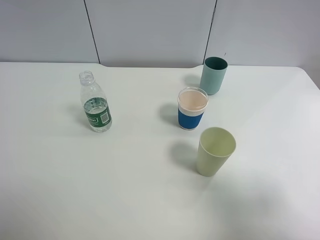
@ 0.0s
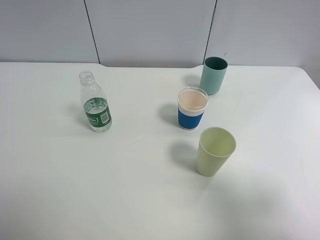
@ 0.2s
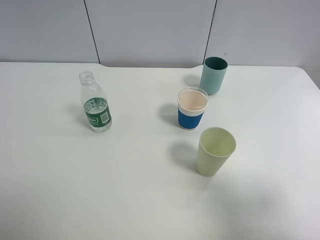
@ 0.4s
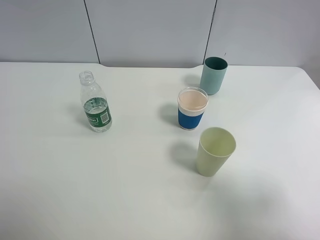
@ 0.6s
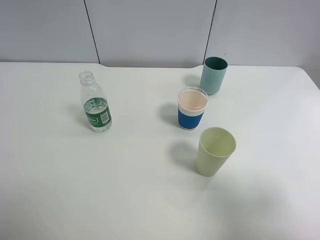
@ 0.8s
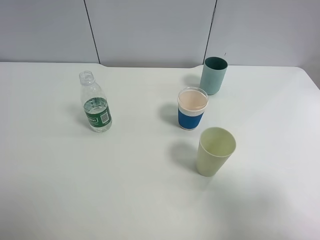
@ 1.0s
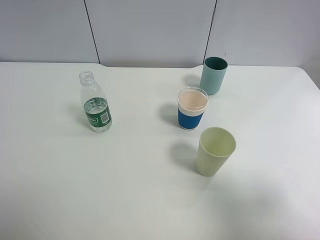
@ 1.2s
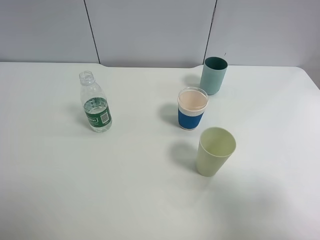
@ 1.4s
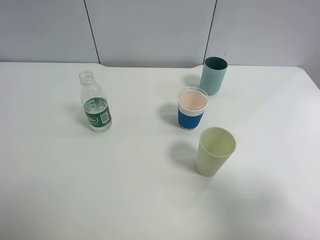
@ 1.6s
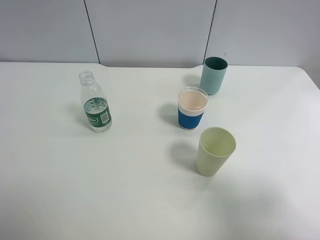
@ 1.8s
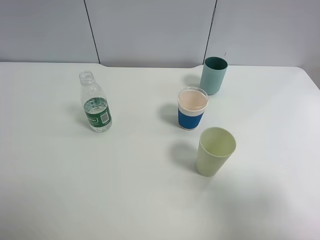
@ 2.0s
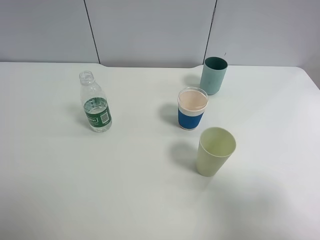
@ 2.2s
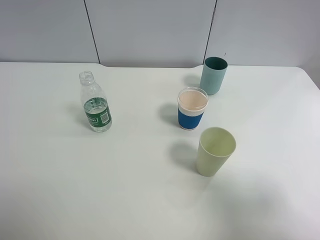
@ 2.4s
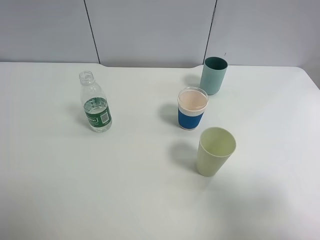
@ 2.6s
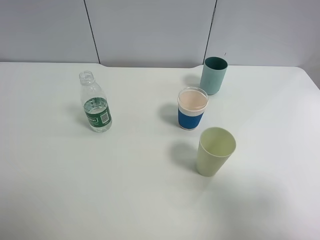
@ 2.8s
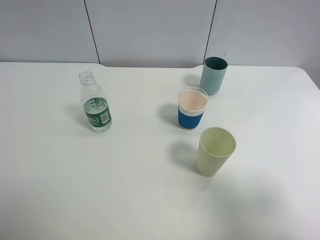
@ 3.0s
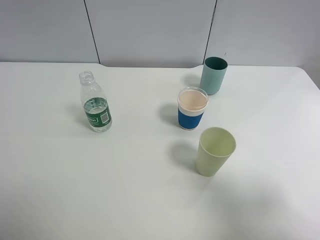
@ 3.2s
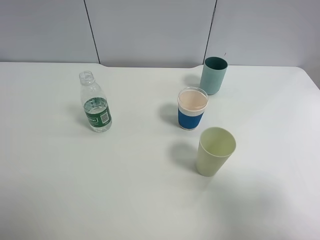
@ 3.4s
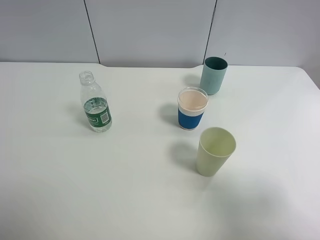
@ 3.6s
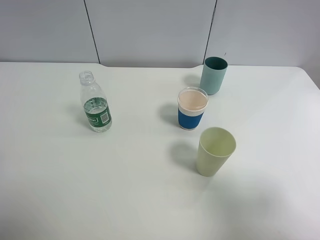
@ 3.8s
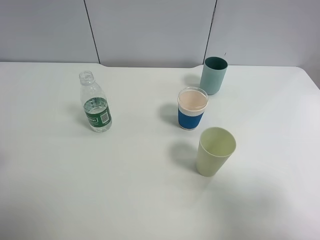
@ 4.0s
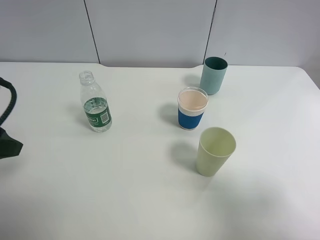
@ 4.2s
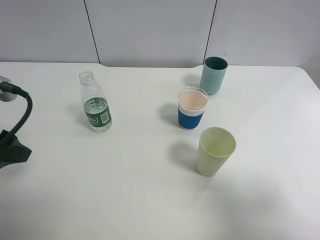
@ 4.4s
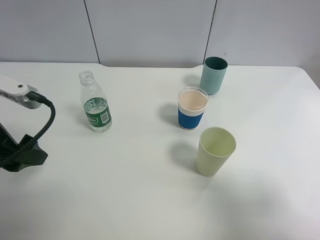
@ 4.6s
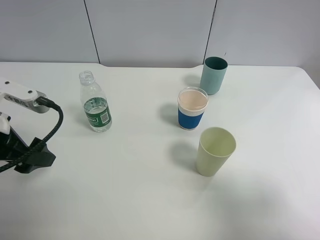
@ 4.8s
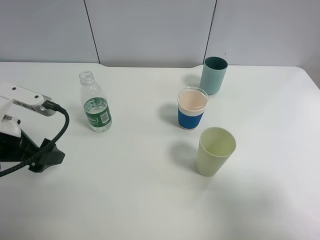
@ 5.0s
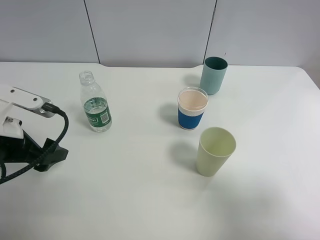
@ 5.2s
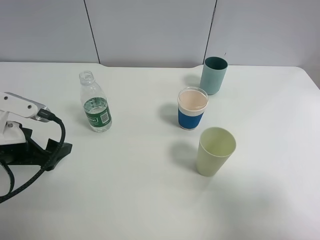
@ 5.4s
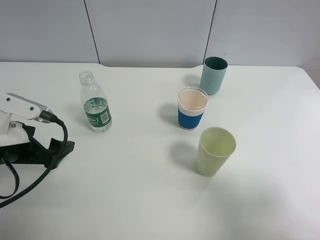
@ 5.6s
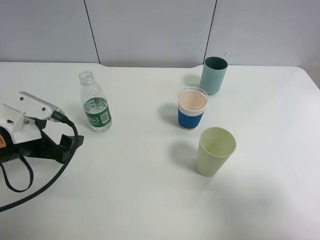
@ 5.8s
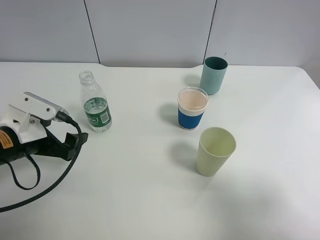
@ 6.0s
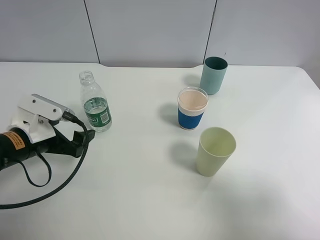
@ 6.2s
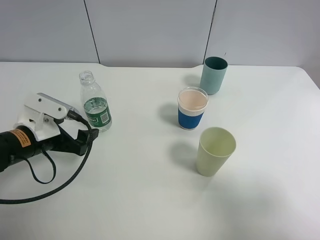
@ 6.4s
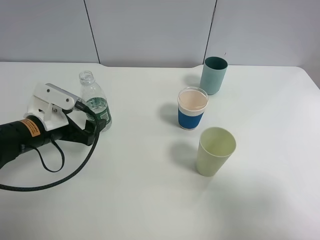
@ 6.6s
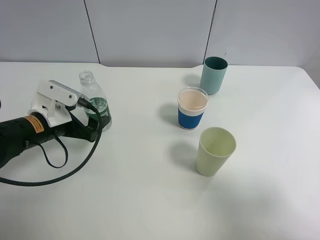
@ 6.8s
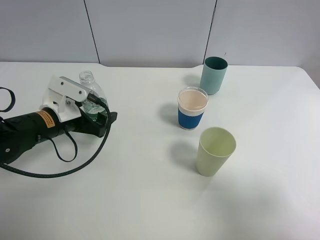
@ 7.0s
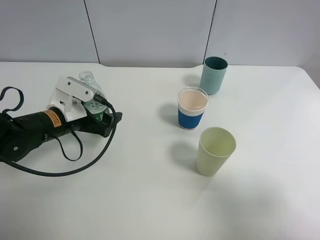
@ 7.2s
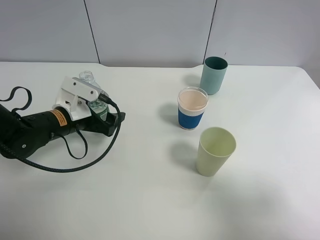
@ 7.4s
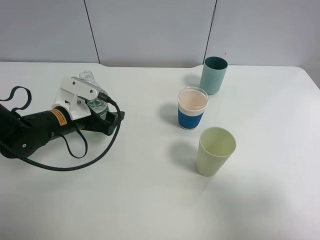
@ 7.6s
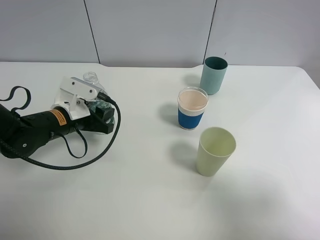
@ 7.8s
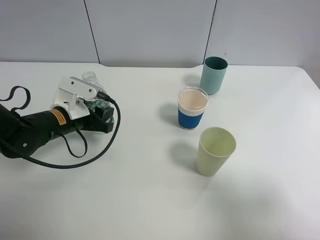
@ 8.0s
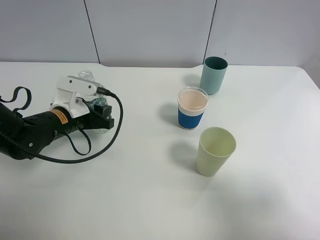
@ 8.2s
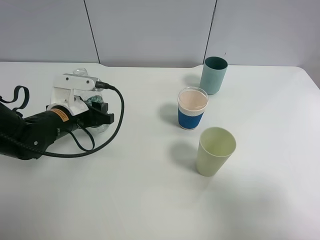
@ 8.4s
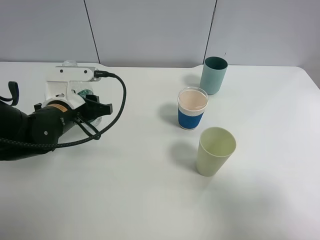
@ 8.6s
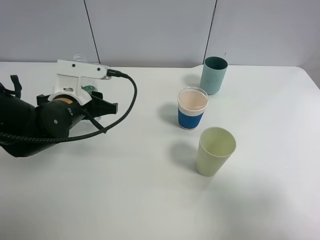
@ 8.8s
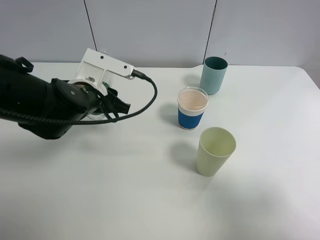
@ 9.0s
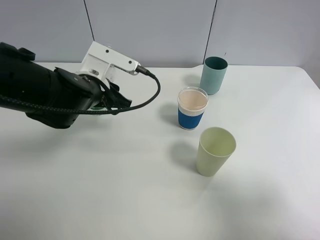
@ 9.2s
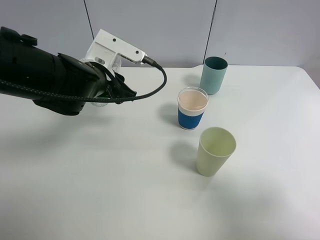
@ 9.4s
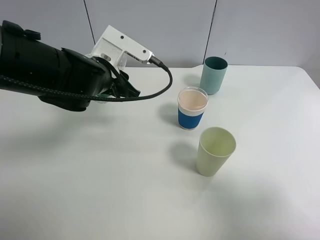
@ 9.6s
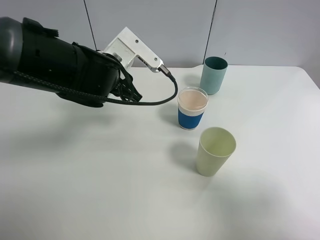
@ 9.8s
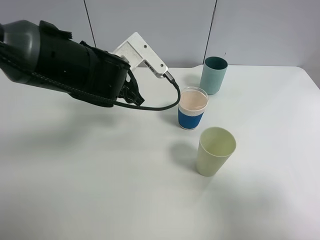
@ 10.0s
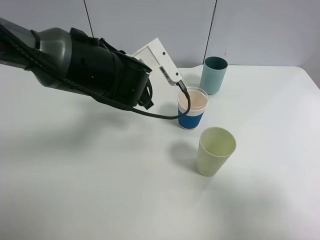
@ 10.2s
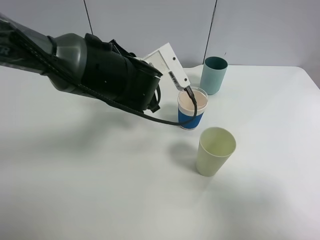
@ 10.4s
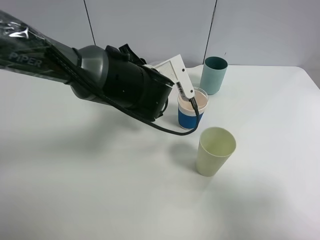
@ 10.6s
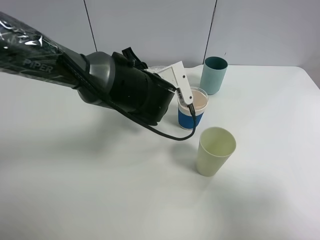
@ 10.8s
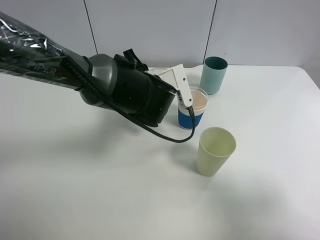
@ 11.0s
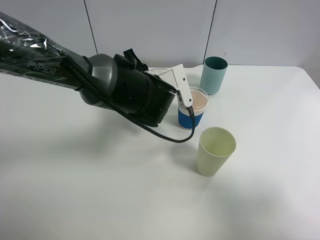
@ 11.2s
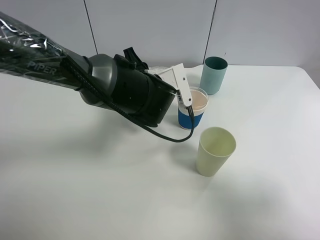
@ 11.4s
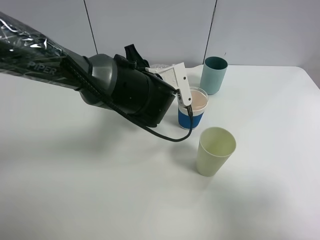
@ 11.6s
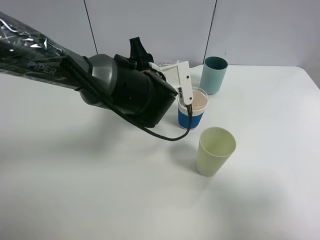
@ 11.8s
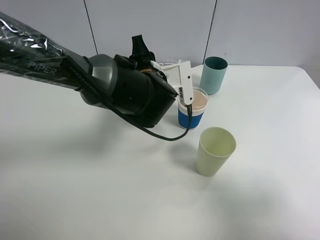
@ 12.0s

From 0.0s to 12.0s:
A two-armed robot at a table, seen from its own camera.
Task of the whole recording: use a clamp to hold the bottle of the drink, pour the beverage into a random cup, then clamp the cup containing the drink and pour the drink into another random cup.
Step, from 0.0s to 9.2s: Pick up the water bottle with left gripper.
From 0.0s to 3.0s: The two grippers keep their place.
From 3.0s to 4.4s: The left gripper travels forward by about 15 cm.
From 4.4s to 6.0s: The left gripper heads downward, covering about 10 cm.
From 6.0s to 7.6s: The left gripper goes about 10 cm forward.
From 7.6s to 9.0s: The left gripper heads upward and to the right, covering roughly 10 cm, and closes its fingers.
From 9.0s to 10.4s: The left gripper travels to the right by approximately 10 cm.

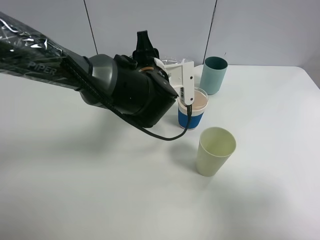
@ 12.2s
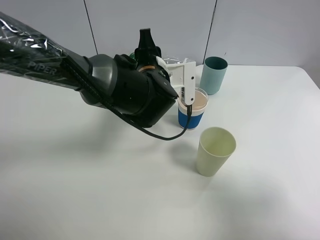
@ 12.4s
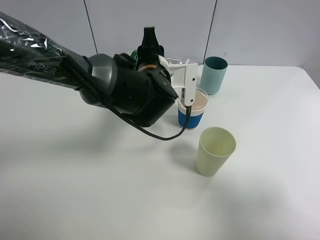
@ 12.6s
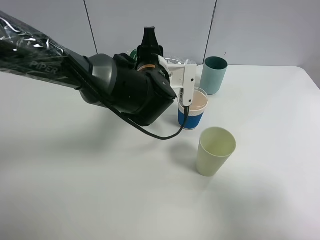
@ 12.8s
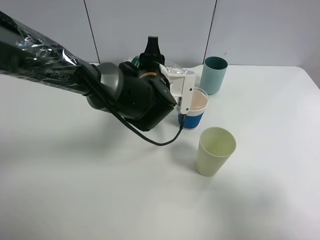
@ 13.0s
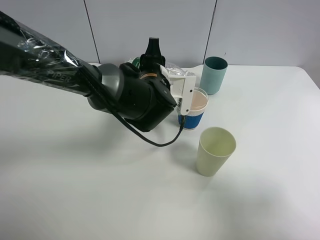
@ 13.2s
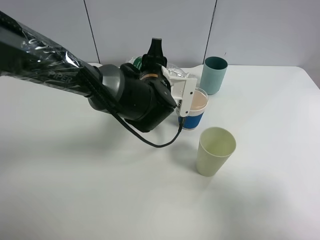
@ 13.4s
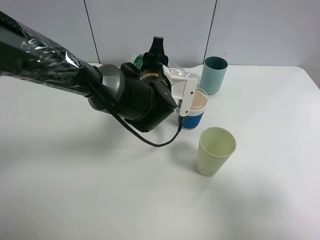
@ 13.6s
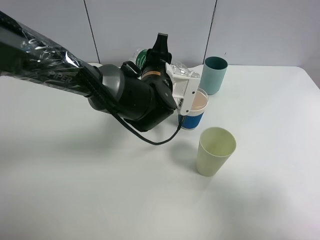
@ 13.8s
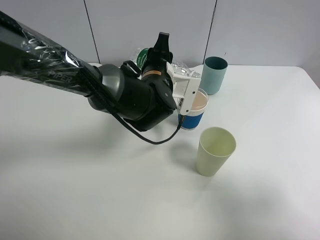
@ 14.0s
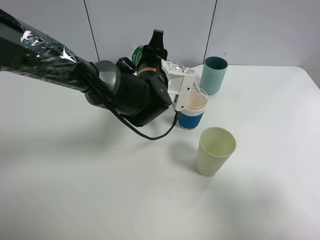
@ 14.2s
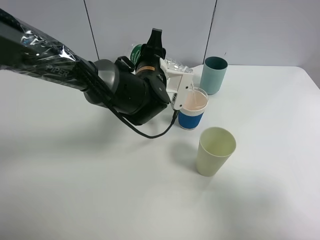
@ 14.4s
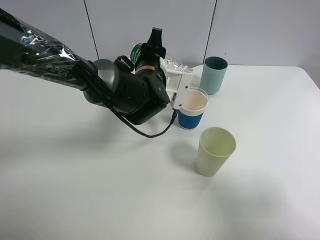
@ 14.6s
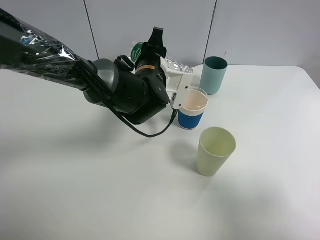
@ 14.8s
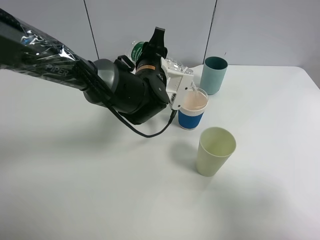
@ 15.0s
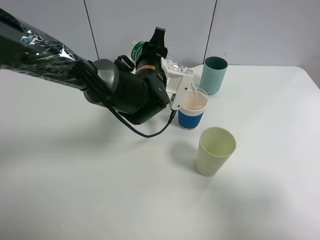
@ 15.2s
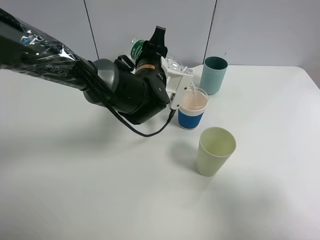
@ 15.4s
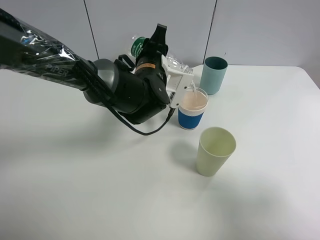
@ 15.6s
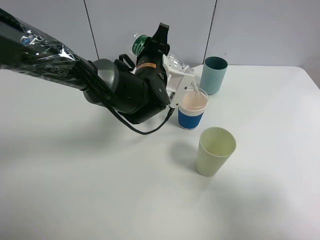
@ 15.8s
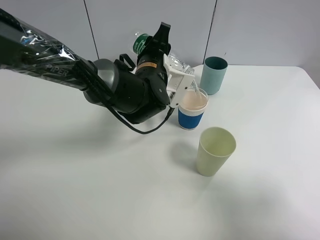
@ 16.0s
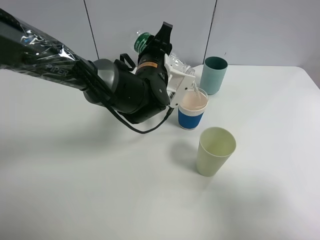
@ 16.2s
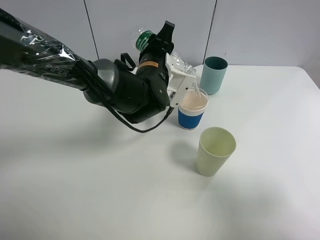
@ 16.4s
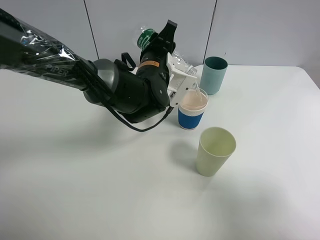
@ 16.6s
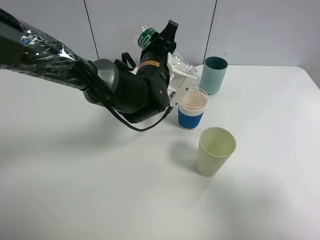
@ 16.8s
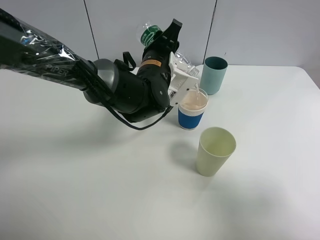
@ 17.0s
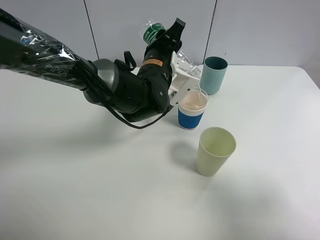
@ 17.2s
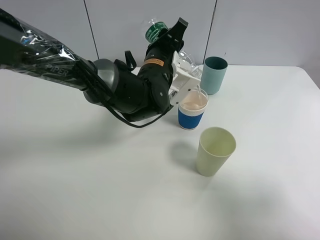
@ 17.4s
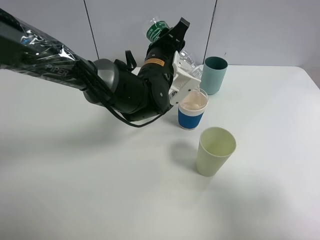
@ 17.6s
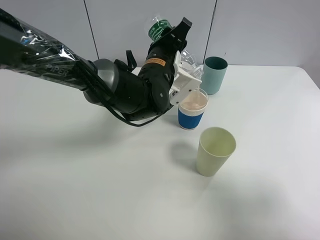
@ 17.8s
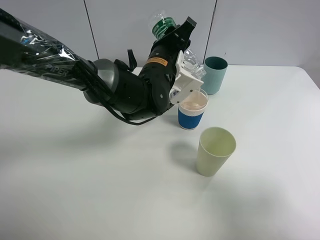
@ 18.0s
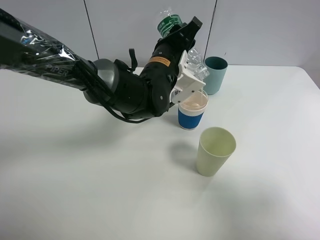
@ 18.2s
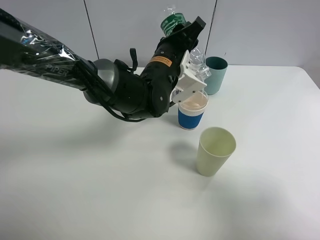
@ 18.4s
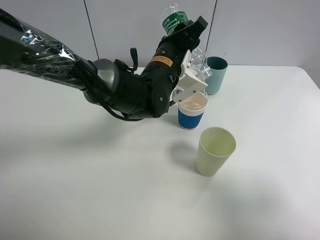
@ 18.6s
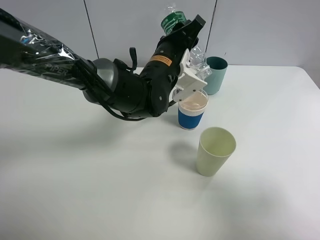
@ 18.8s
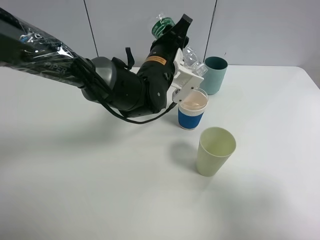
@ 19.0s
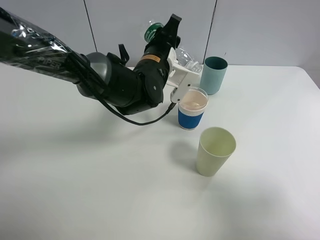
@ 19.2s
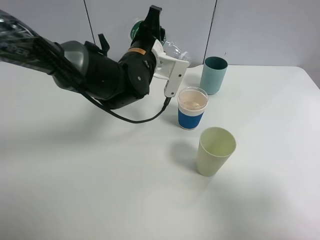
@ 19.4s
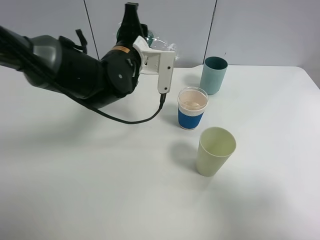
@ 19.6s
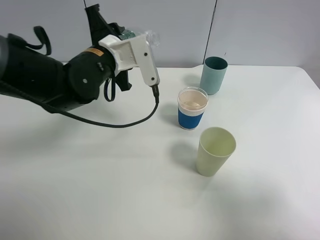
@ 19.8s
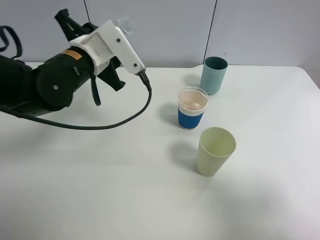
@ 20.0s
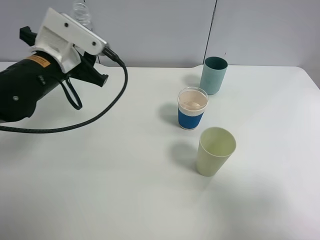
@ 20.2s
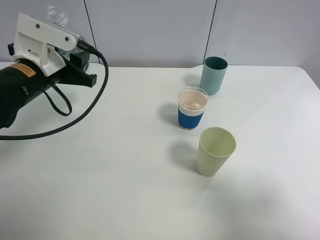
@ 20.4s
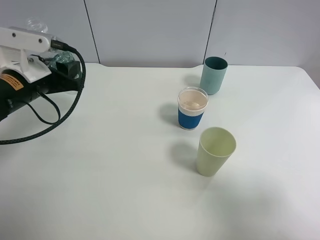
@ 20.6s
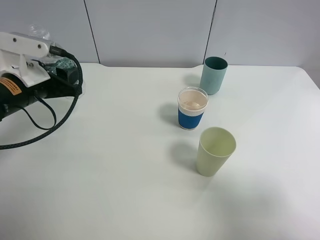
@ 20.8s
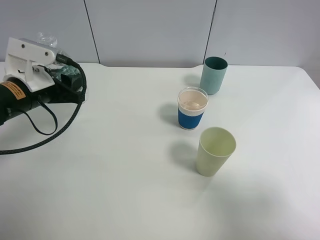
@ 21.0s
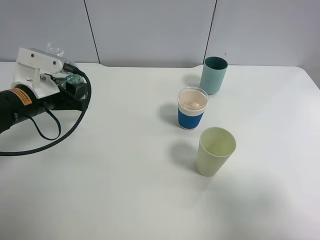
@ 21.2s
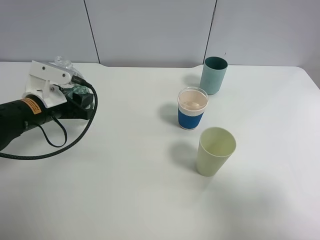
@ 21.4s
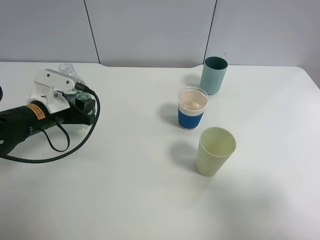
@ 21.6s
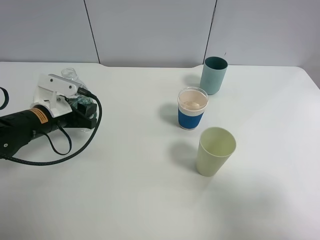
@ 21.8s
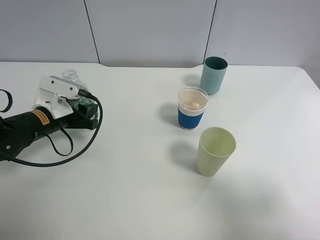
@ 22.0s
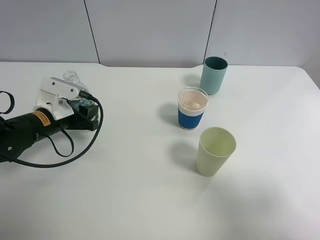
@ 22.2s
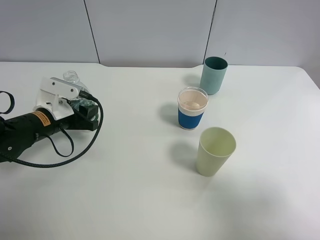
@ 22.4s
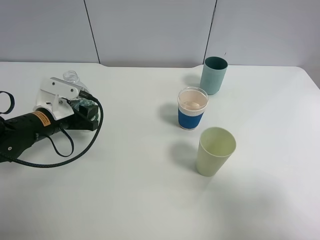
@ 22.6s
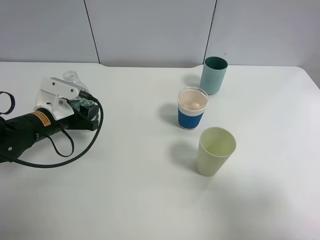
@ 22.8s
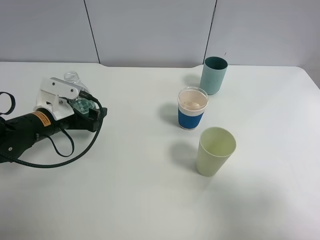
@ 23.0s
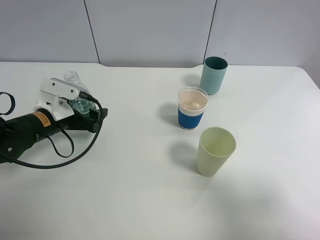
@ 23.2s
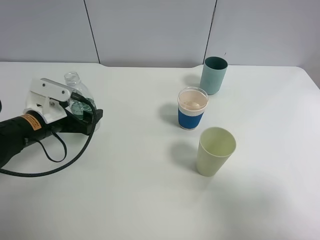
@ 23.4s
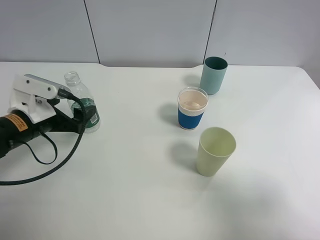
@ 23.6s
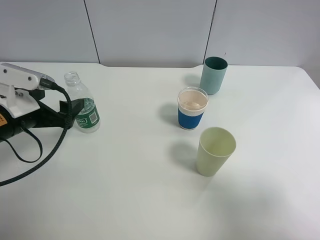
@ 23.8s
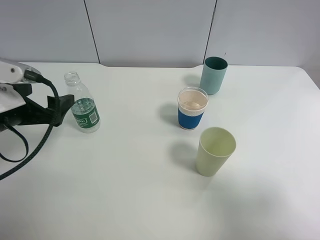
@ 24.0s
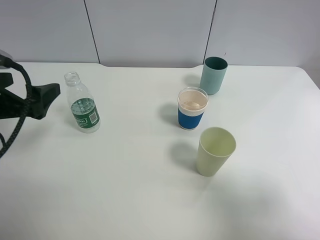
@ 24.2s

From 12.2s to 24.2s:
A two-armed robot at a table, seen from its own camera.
Task of the whole recording: use a clamp to hold the bottle of the drink, pour the beverage into a random cup, then clamp the cup containing the drink and pour the drink into another random cup.
Step, from 12.2s to 19.6s: Pour water into the paper cup with left gripper.
Step, from 19.8s to 24.0s: Place the water bottle on the table with left gripper.
From 12.2s to 13.8s: The grippers stay close to where they were, moving slightly.
From 13.8s to 16.6s: The grippers stay close to where they were, moving slightly.
From 16.6s to 18.2s: The grippers move only a little.
From 18.2s to 19.8s: The left gripper goes approximately 10 cm to the left.
From 19.8s to 21.2s: The left gripper moves to the left and downward, about 15 cm.
From 21.2s to 22.6s: The left gripper moves downward, roughly 5 cm.
From 22.6s to 24.2s: The left gripper heads upward and backward, covering roughly 15 cm, and opens its fingers.
